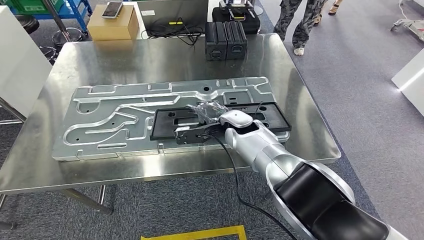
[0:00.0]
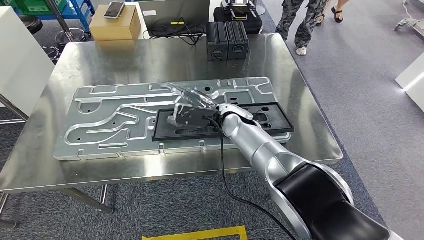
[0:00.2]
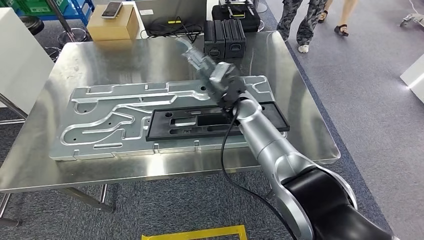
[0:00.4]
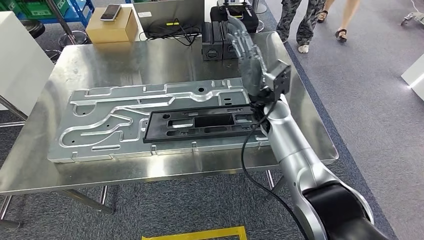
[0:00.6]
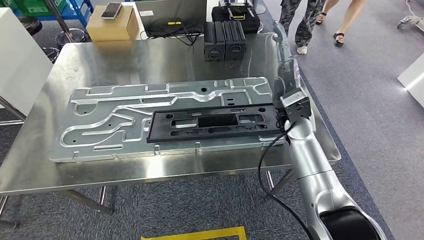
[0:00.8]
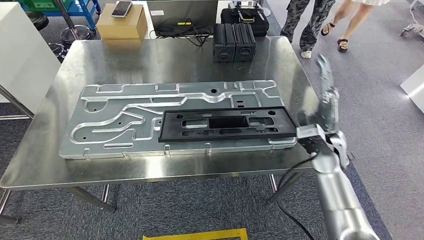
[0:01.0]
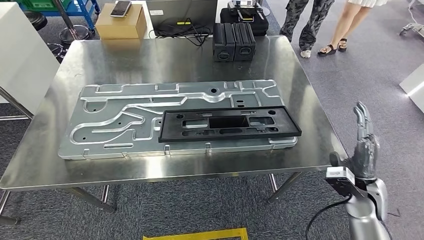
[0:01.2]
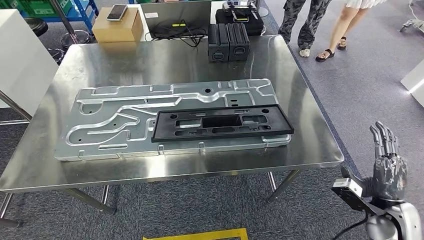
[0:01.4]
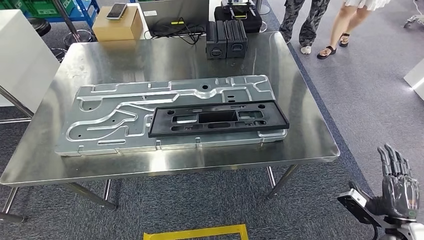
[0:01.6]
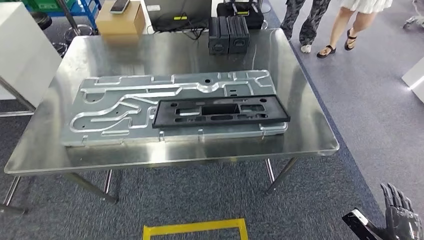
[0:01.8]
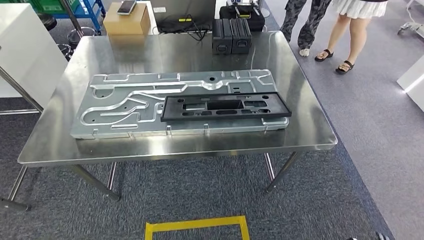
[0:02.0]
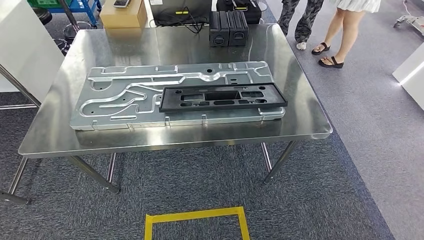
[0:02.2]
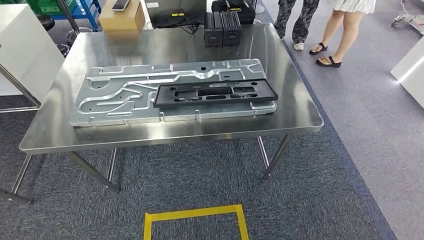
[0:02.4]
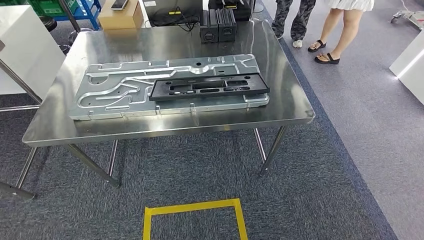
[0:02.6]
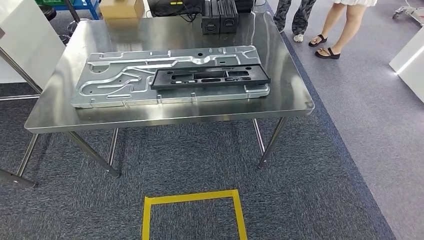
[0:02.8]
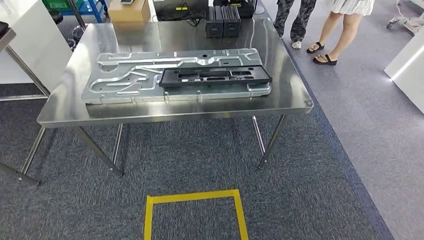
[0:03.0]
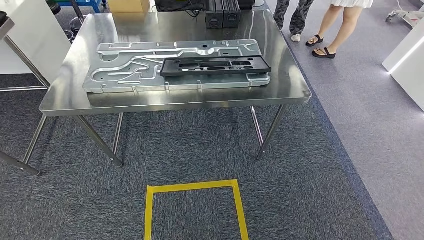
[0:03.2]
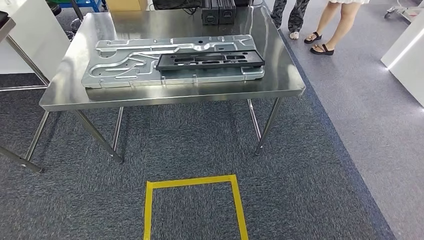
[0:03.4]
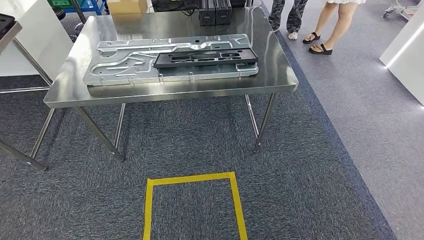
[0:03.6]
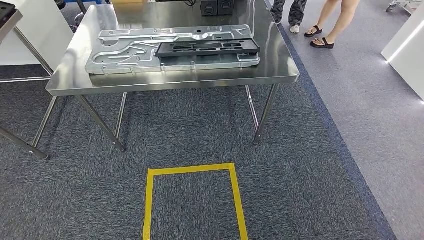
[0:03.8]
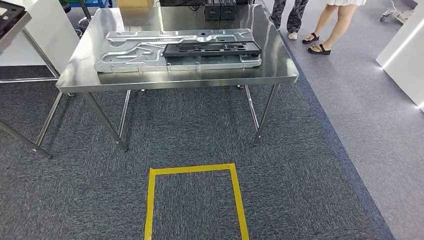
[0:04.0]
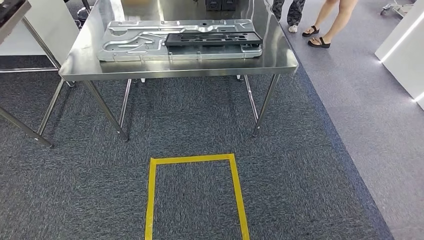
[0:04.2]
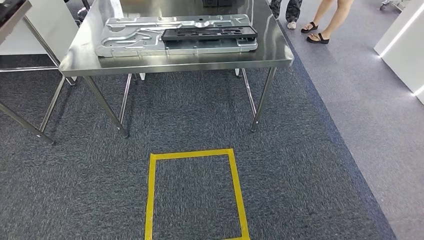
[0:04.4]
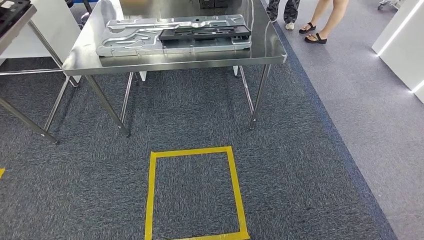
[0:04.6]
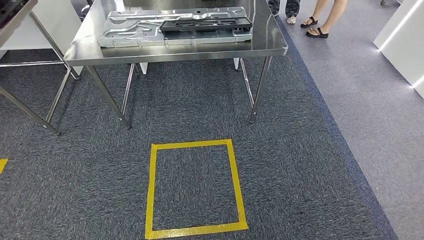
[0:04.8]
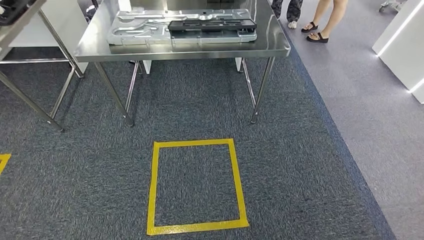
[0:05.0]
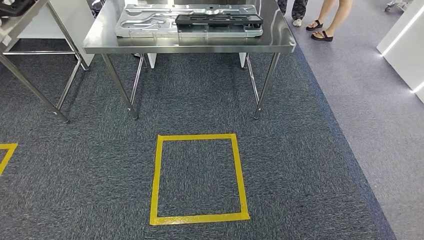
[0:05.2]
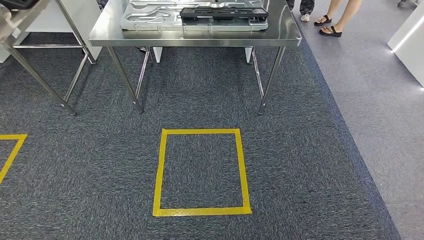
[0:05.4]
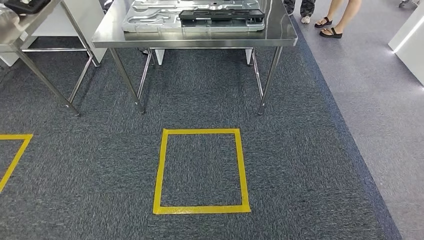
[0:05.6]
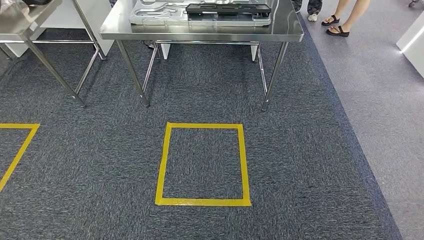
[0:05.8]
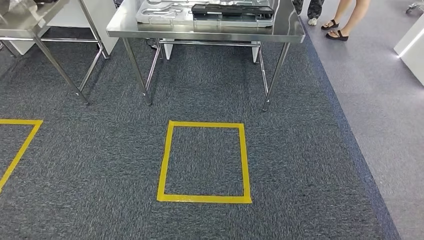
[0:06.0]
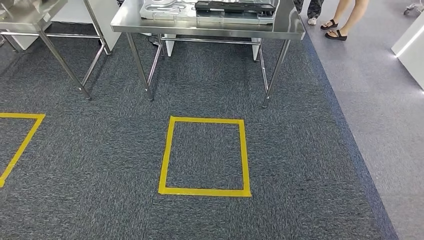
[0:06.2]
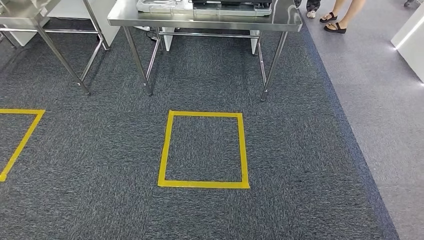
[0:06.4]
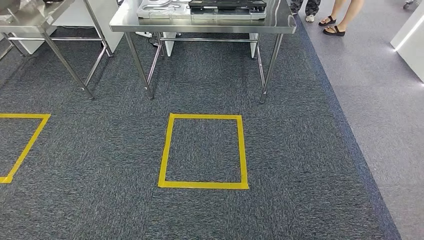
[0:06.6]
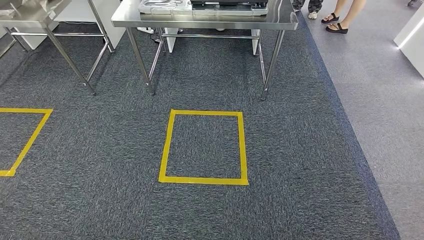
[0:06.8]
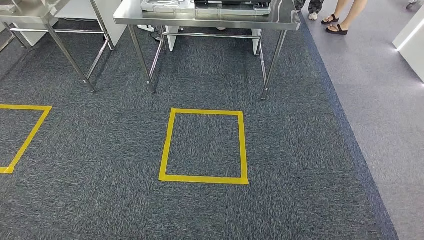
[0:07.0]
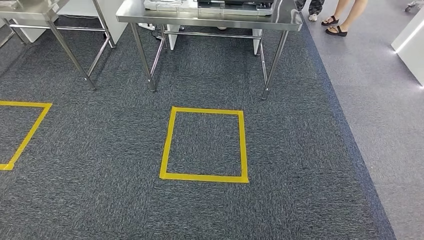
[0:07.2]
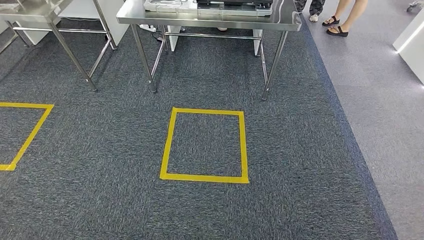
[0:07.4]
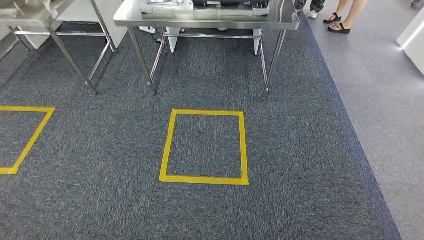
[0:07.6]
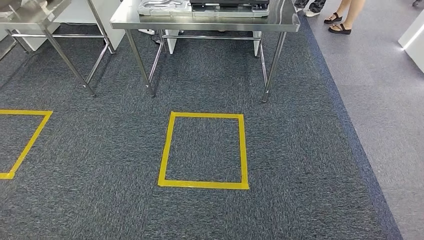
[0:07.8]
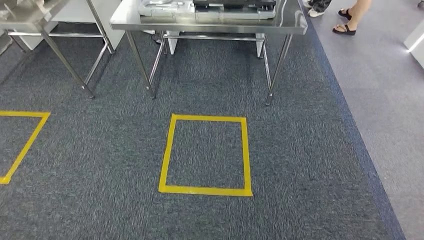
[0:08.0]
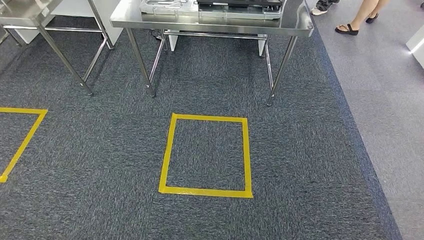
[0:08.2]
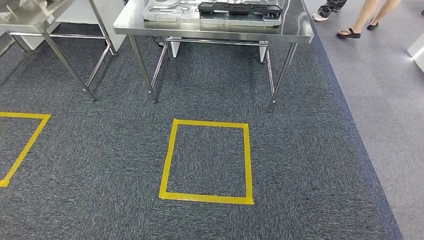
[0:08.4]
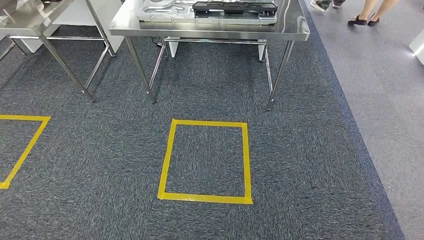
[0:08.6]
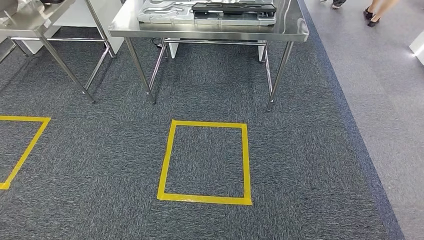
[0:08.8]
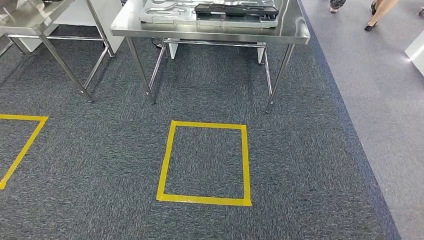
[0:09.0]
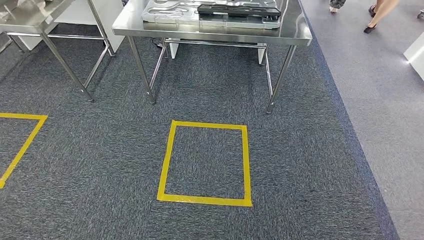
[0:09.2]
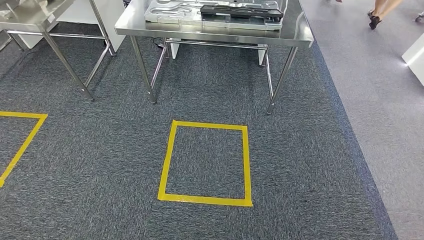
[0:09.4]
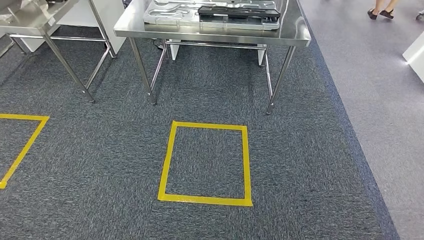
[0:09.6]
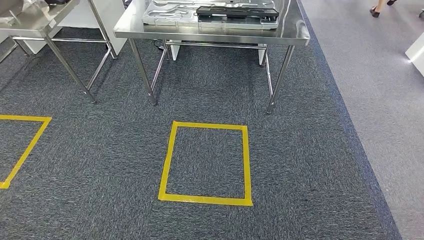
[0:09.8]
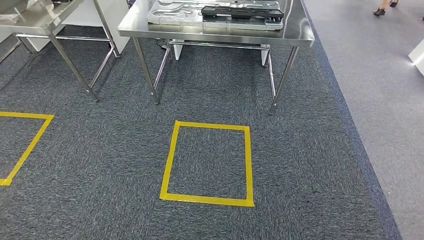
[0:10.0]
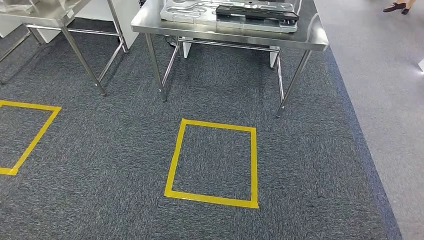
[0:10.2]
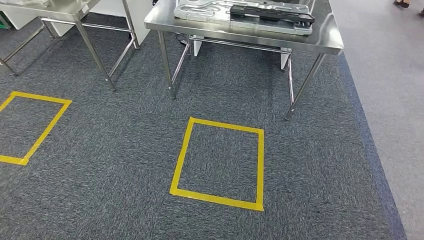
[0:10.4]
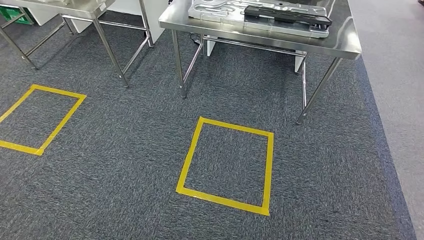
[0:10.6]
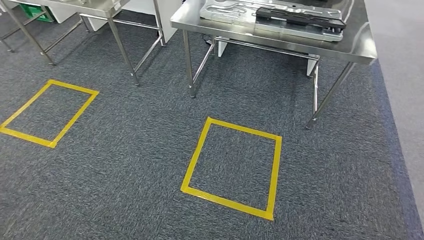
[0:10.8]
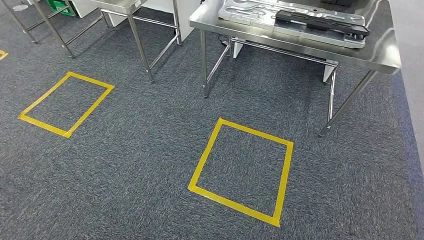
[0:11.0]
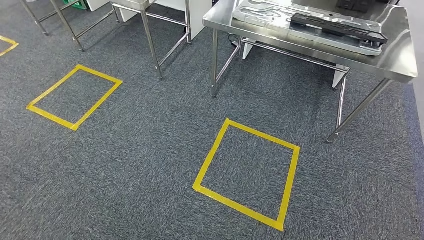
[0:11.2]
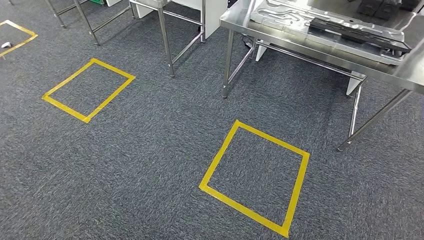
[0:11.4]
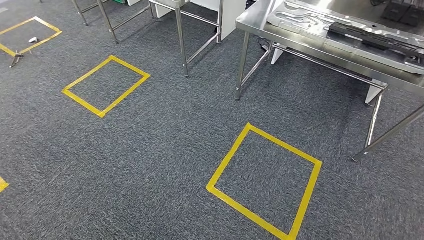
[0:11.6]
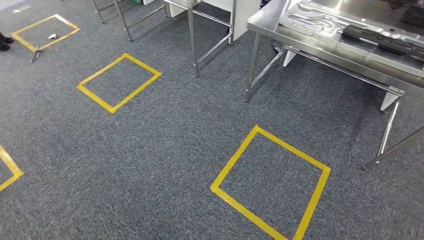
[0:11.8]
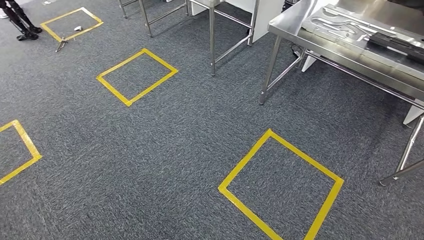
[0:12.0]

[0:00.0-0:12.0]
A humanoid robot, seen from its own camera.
Step, 0:00.4 to 0:04.0: Insert the large material into the corresponding slot on the workbench.
0:06.0 to 0:07.6: The hands move only a little.
0:07.6 to 0:09.0: Both hands stay put.

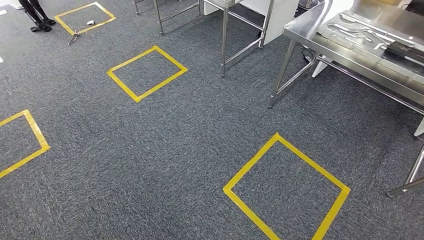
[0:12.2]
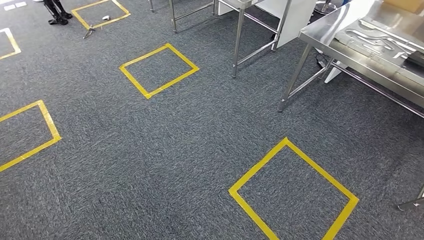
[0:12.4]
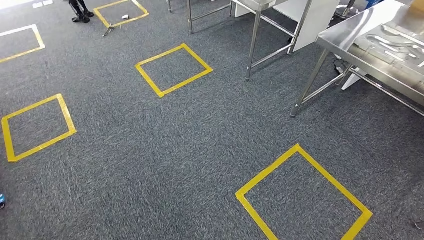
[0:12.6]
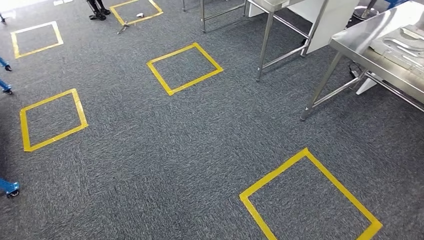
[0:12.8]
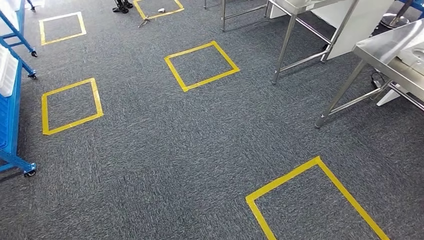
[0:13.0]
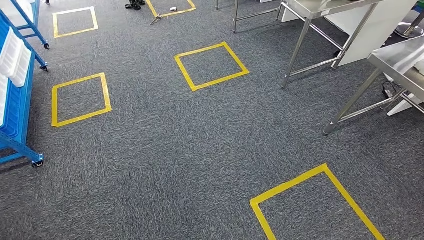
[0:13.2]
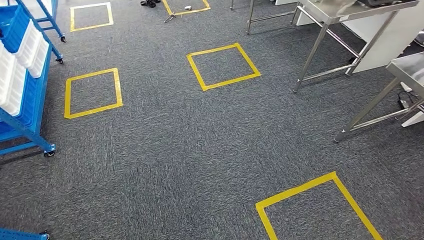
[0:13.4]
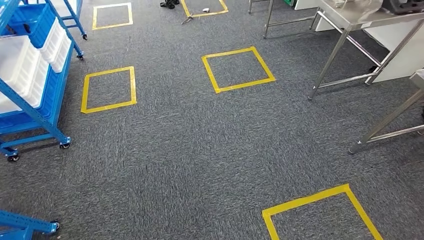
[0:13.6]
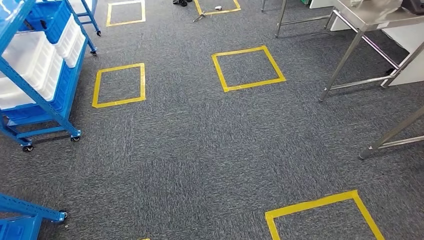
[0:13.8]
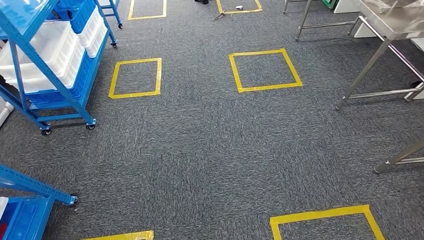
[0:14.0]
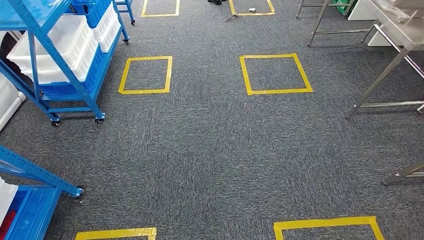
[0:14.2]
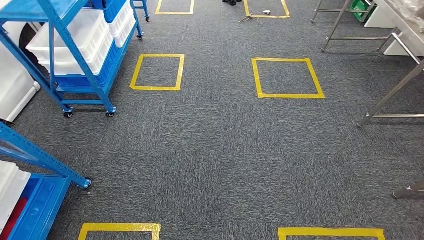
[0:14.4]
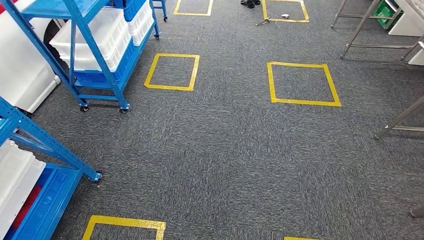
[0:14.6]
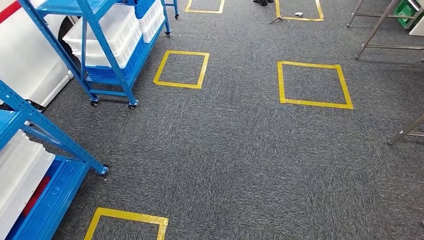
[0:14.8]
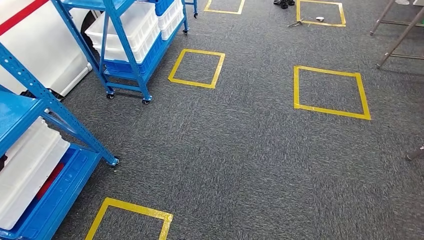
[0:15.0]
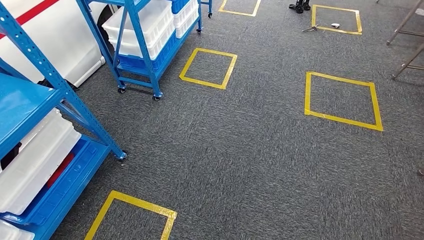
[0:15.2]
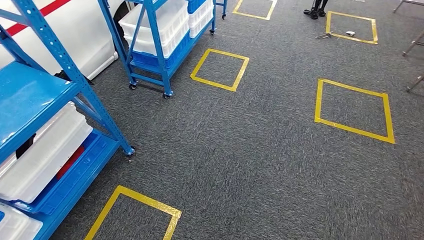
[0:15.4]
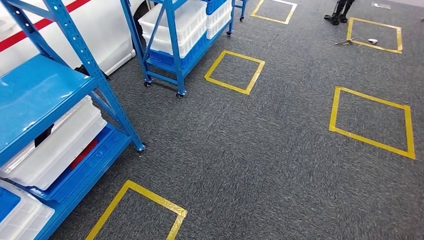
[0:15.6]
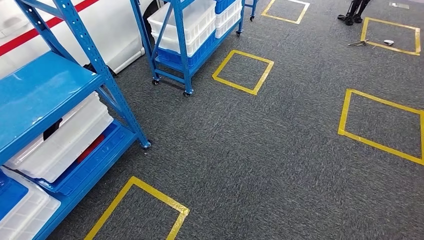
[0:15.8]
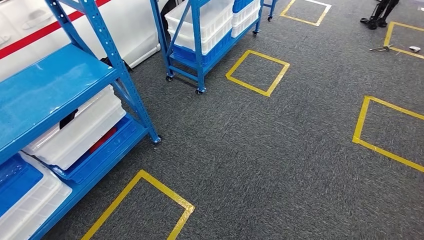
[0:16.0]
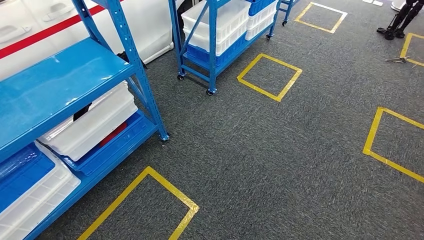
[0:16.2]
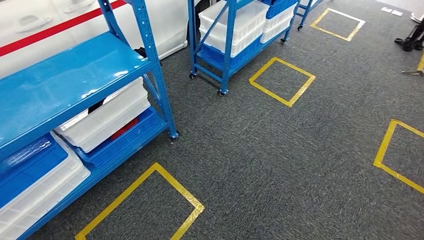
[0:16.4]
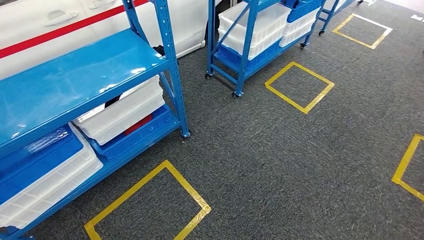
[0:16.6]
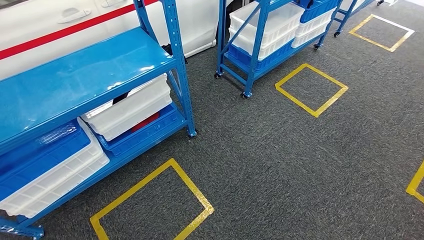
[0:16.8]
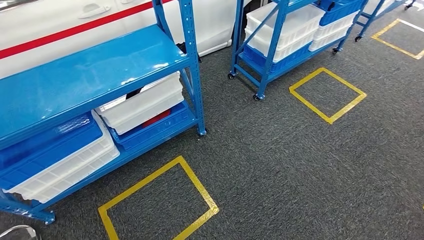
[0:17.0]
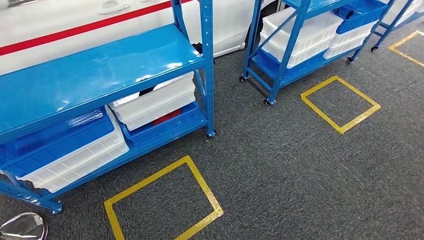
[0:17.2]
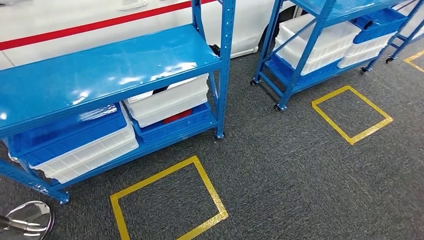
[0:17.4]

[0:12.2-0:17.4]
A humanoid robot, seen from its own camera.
Step, 0:12.2 to 0:17.2: Move to the initial position of the shelf.
